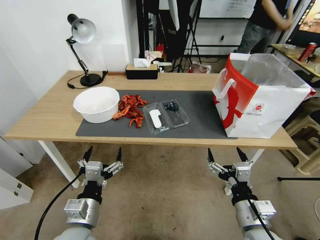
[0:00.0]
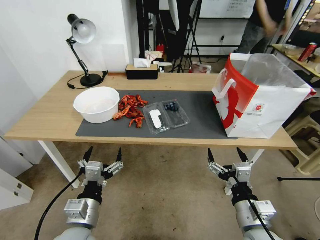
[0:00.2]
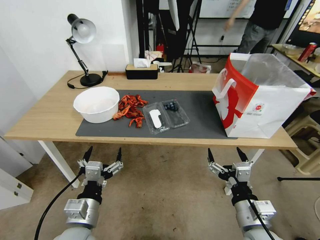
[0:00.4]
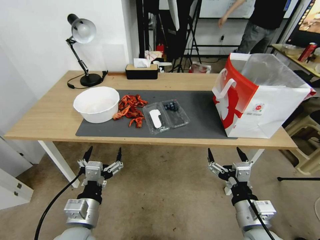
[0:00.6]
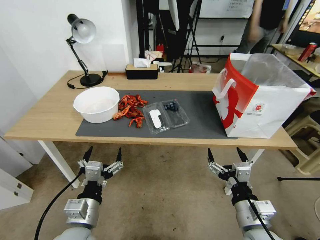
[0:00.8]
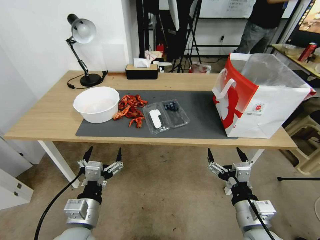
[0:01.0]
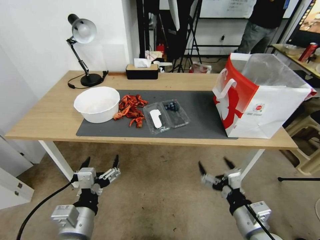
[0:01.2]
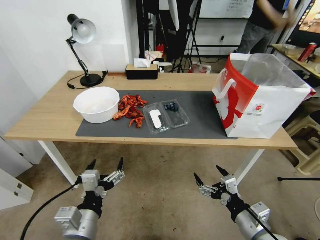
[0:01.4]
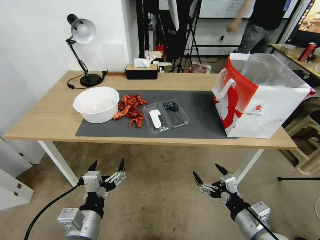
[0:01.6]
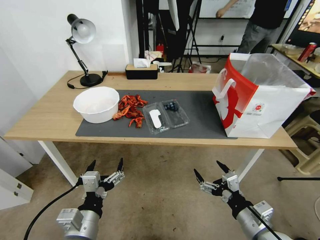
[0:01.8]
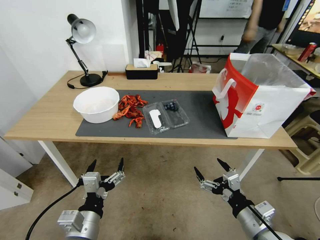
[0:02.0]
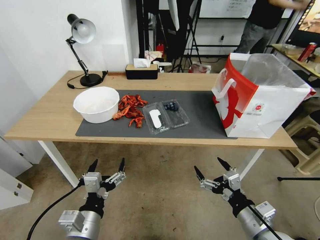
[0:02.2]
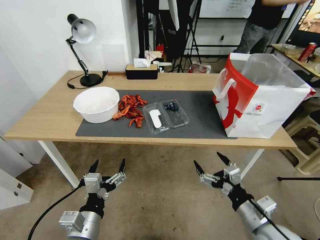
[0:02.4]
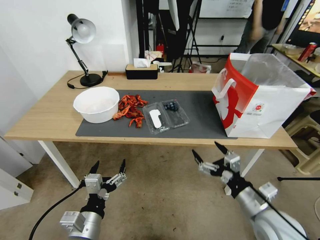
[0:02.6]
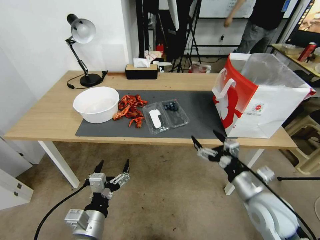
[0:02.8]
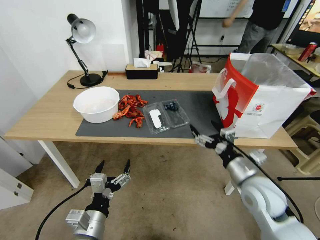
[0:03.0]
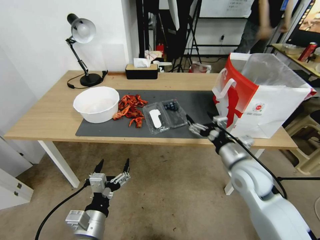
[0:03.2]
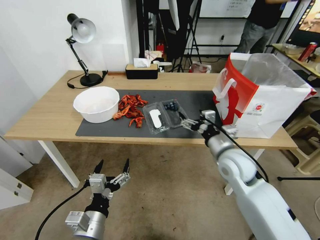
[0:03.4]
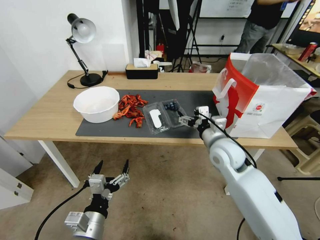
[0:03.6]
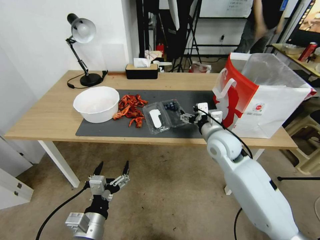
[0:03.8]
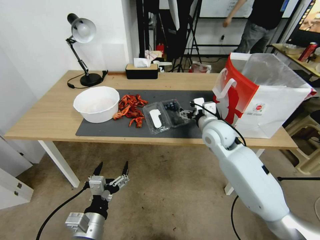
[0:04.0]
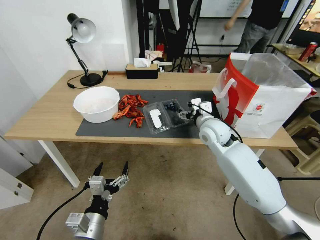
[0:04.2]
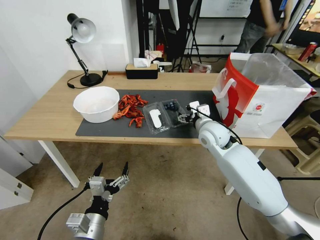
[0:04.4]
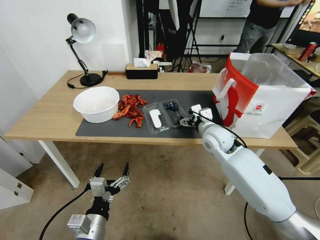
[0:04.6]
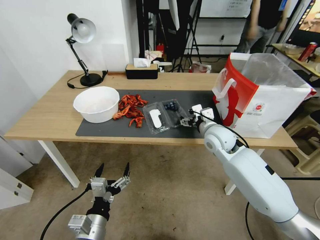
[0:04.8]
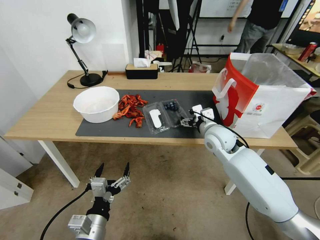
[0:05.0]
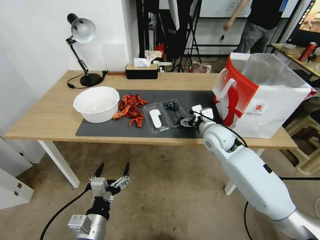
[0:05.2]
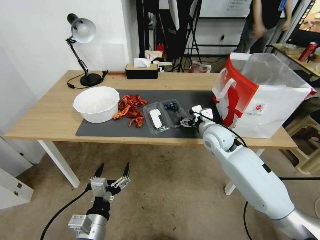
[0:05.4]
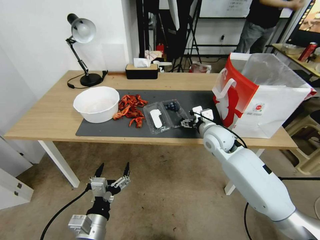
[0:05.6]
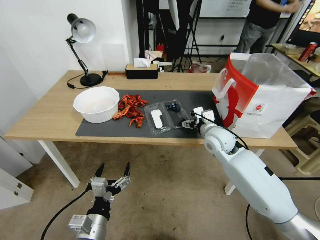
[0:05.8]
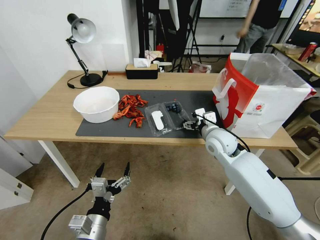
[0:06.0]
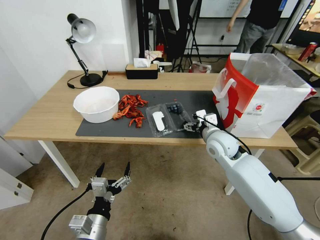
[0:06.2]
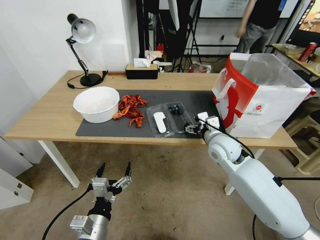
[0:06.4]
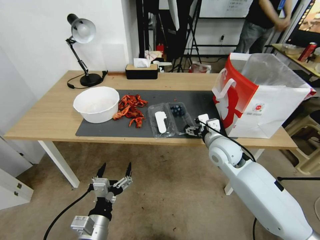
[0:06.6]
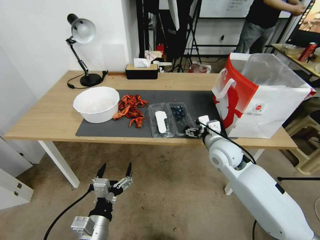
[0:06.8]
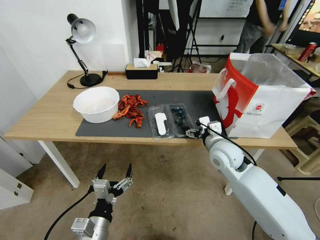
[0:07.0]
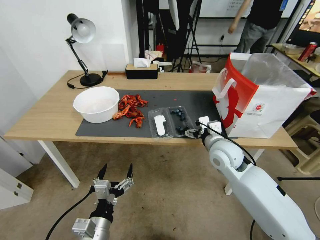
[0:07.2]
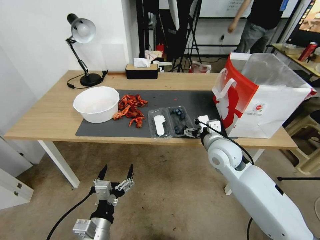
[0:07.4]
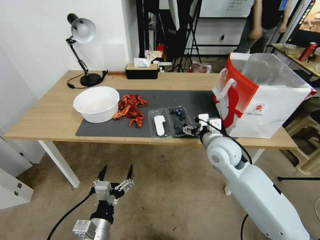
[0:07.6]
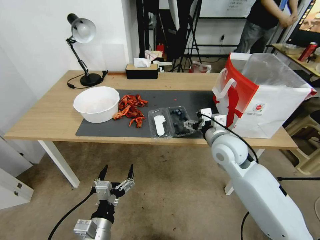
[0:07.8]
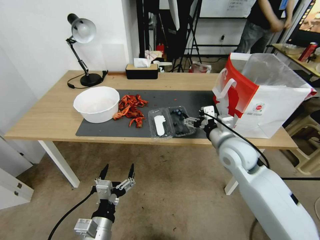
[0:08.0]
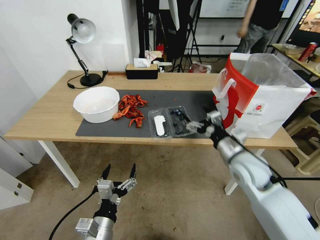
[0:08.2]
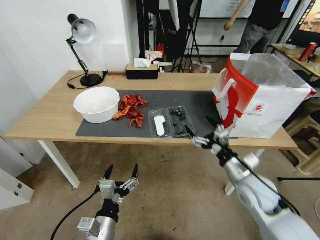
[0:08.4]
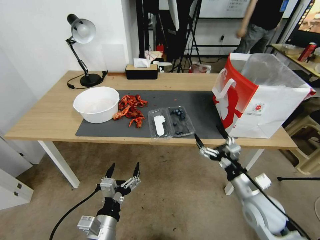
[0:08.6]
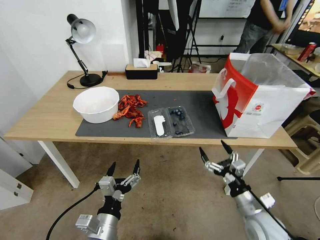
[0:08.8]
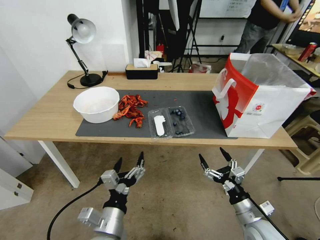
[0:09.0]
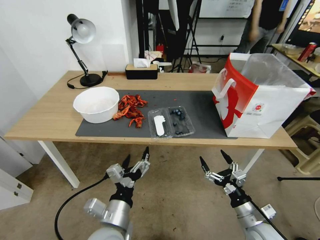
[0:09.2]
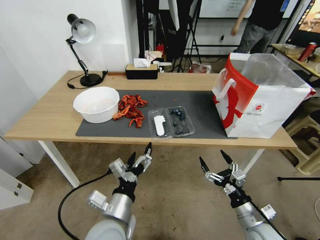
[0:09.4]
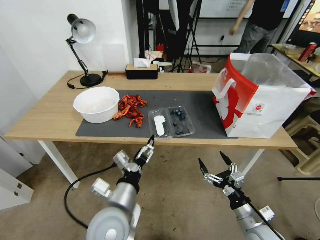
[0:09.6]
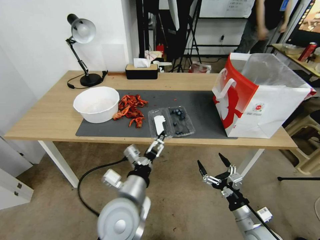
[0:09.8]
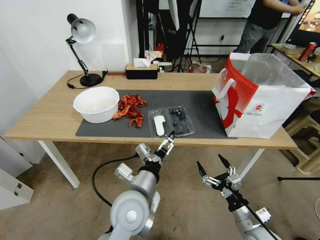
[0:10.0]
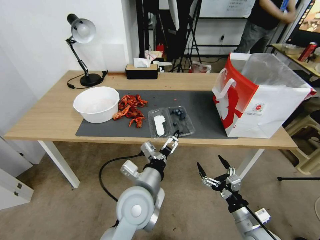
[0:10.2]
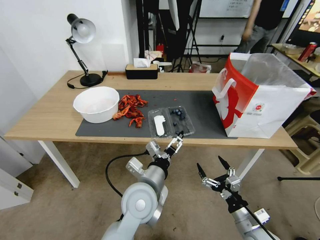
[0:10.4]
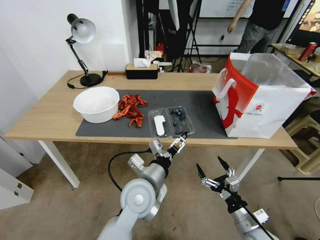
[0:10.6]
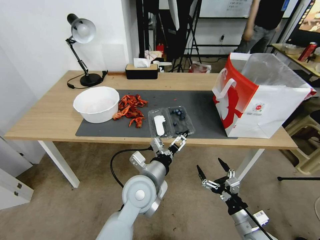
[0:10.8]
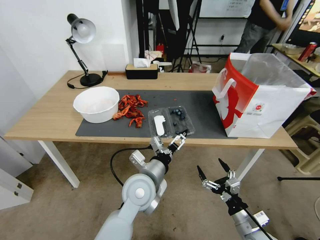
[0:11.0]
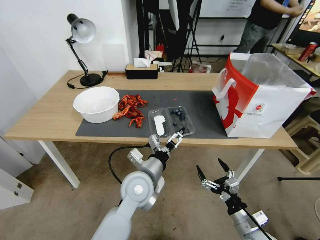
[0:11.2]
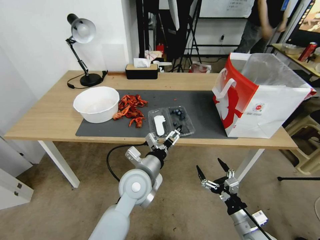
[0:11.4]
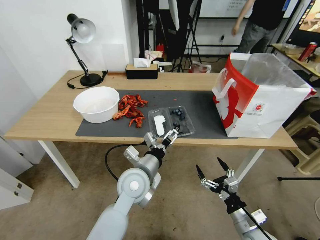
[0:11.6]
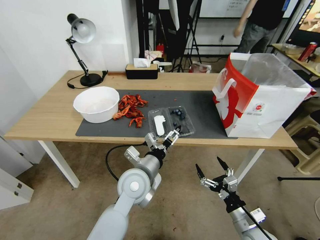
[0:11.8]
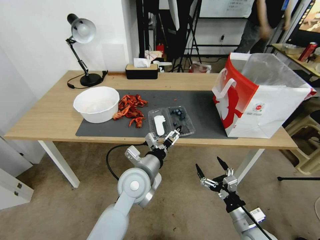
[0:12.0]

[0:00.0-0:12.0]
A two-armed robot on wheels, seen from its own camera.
Task of the whole recording: Close the takeout container lid, then place the container into the takeout bag.
0:01.6 to 0:03.0: The right gripper moves forward and upward, about 15 cm.
0:03.0 to 0:04.4: The right gripper heads forward and to the left, covering roughly 20 cm.
0:04.4 to 0:06.0: There are only small adjustments of the grippers.
0:06.0 to 0:07.6: The right gripper ends up roughly 5 cm from where it was.
0:07.6 to 0:09.0: The right gripper moves backward, downward and to the right, approximately 25 cm, while the left gripper moves approximately 5 cm.
0:09.0 to 0:10.4: The left gripper travels forward, to the right and upward by some 15 cm.
0:10.4 to 0:12.0: The left gripper ends up about 5 cm from where it was.

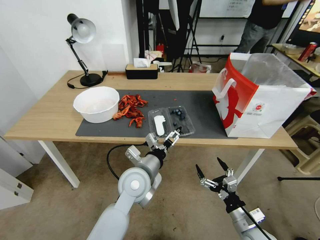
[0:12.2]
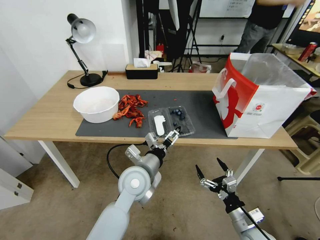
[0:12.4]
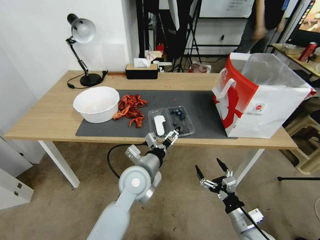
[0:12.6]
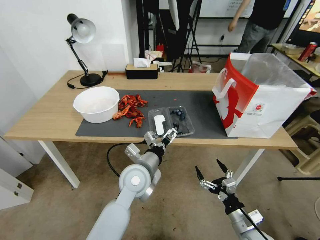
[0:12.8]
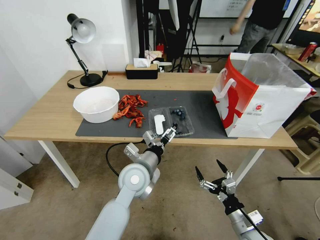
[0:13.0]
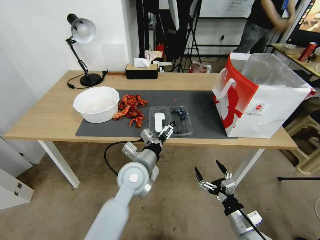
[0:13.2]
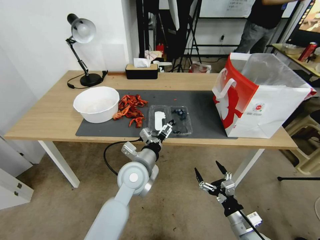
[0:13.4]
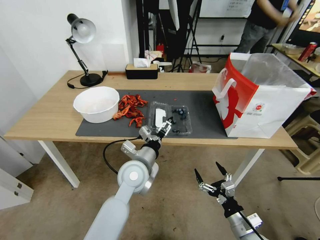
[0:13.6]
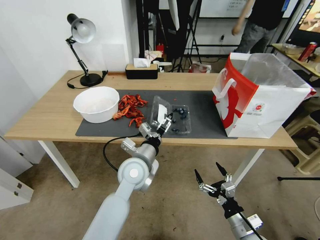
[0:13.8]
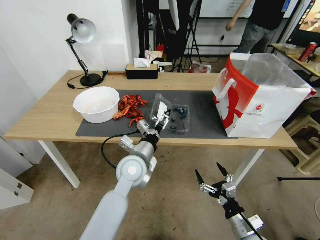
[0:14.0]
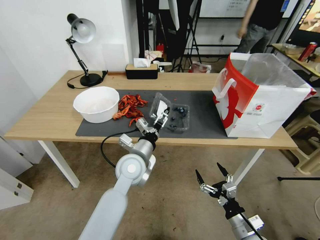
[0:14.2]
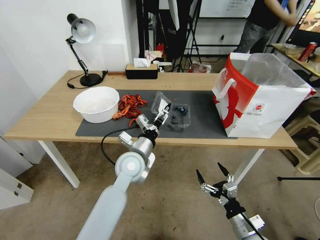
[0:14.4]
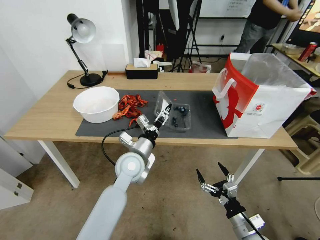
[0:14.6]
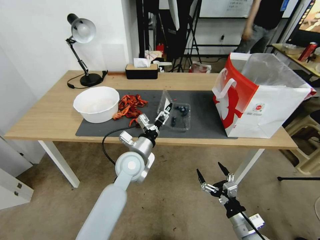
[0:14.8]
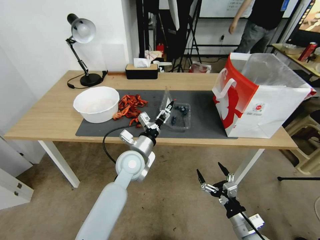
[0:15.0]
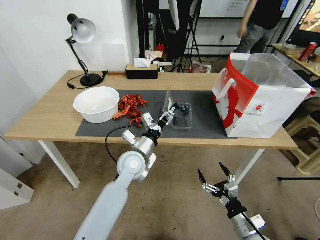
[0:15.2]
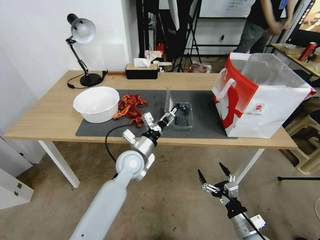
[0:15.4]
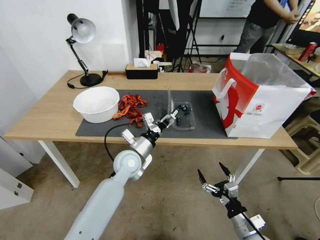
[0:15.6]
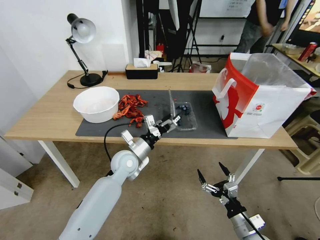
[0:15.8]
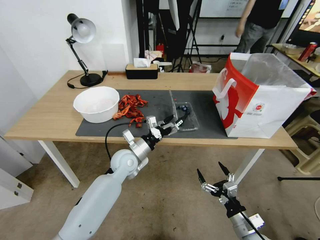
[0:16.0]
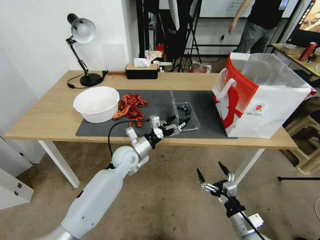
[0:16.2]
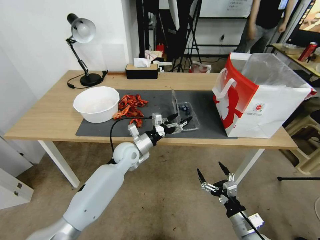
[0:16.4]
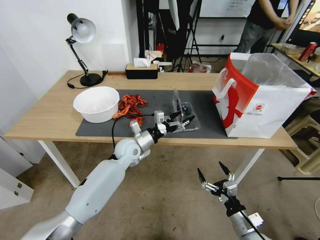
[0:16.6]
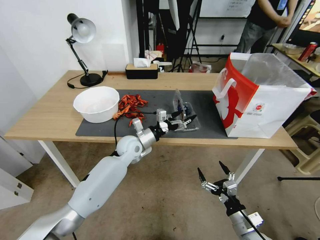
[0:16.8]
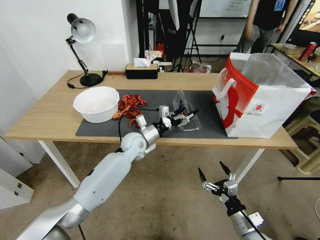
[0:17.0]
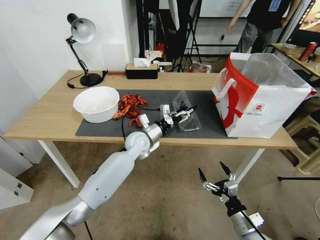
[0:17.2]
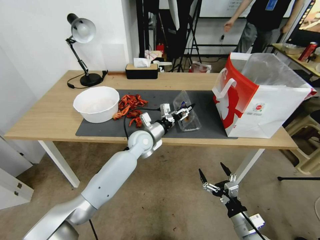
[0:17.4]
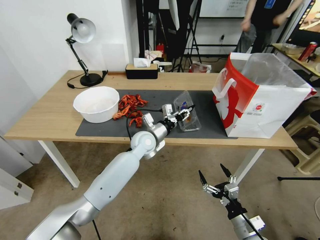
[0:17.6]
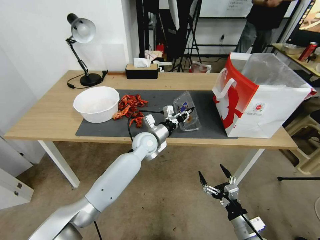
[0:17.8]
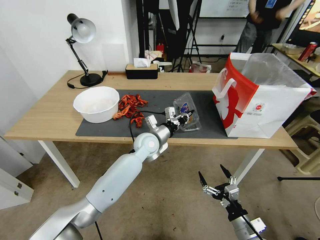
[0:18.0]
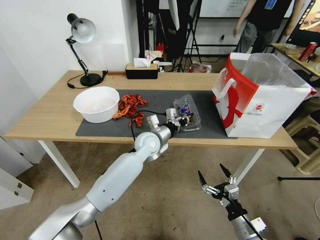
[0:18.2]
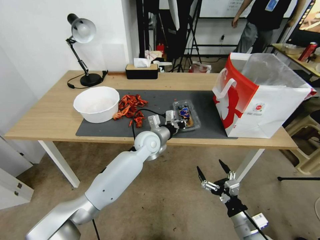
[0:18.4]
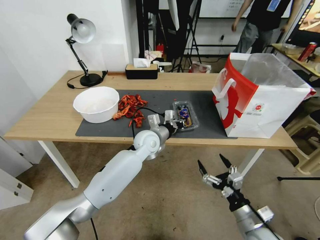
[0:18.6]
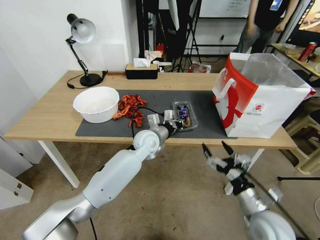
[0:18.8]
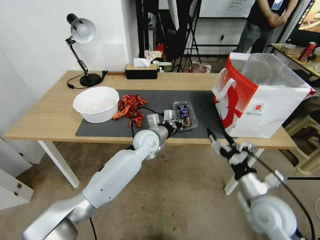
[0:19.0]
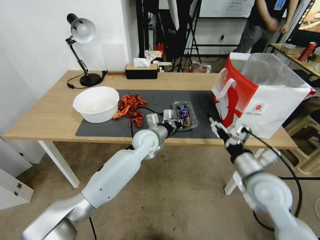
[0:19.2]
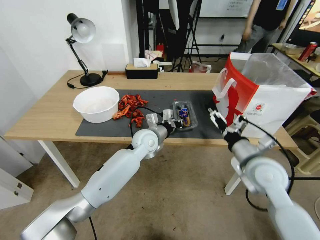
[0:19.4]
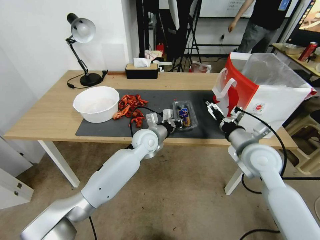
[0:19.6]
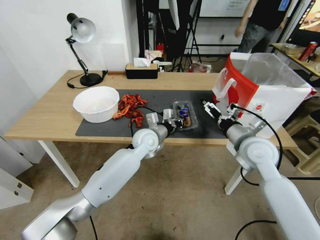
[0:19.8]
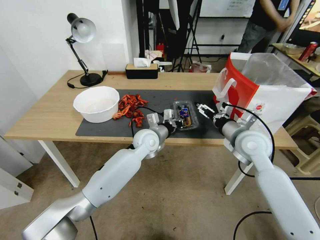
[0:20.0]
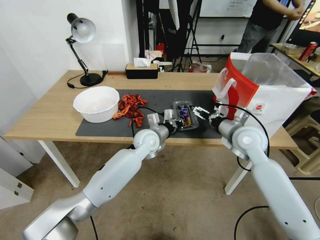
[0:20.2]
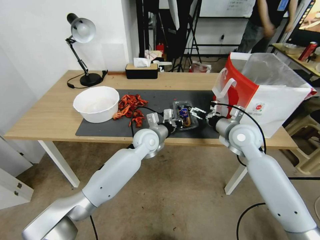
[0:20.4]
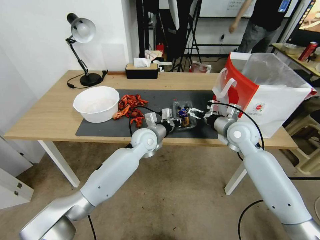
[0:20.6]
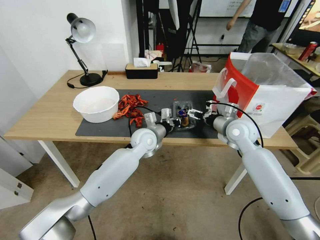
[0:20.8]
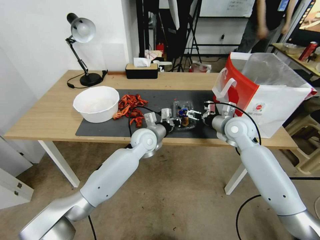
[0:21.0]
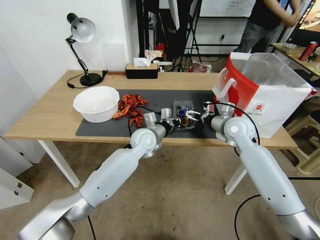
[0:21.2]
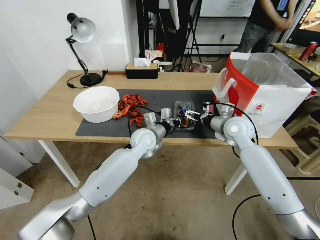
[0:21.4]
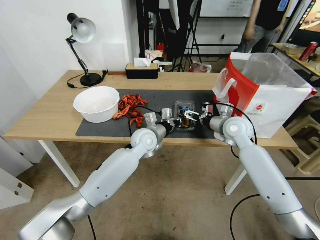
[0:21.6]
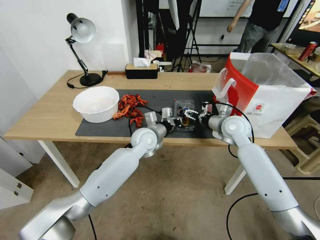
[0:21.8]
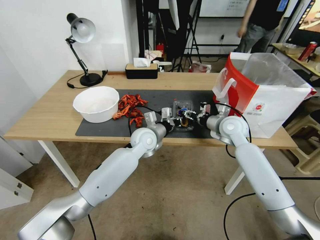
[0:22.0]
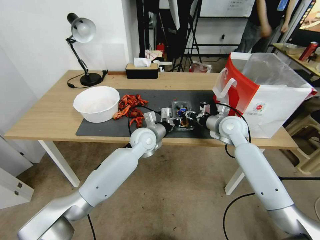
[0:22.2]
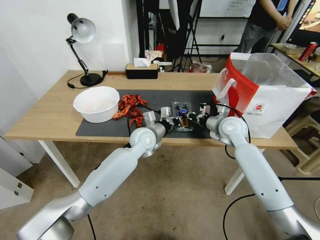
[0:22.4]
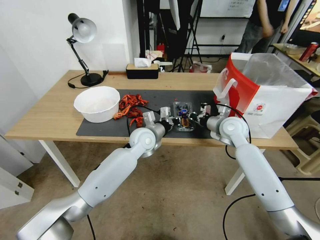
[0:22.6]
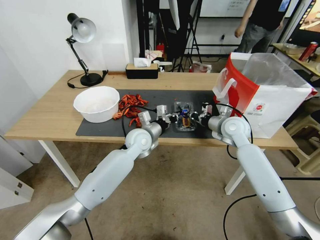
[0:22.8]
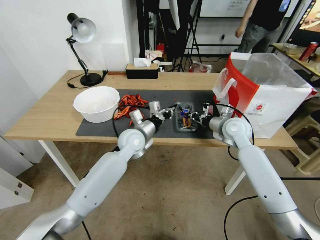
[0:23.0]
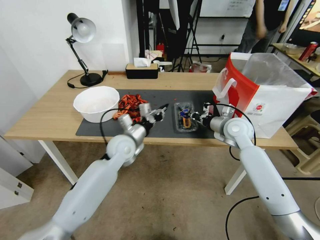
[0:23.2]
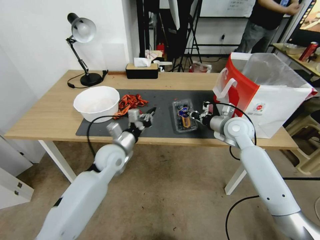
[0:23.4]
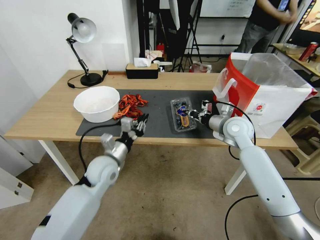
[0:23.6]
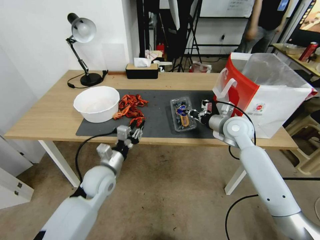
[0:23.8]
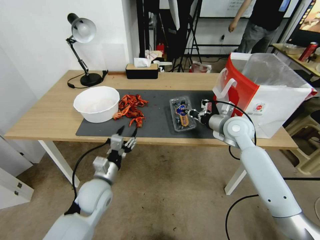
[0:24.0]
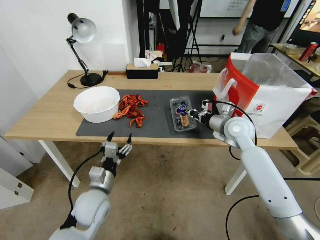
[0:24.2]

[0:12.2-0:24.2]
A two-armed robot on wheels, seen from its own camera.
Task of the whole recording: Close the takeout container lid, then place the container into the takeout bag.
0:12.2 to 0:13.8: There are only small adjustments of the grippers.
0:13.8 to 0:15.2: The grippers stay close to where they were, moving slightly.
0:15.2 to 0:16.6: The left gripper travels forward by about 10 cm.
0:16.6 to 0:18.2: The left gripper is displaced to the right by approximately 10 cm, and closes up.
0:18.2 to 0:19.8: The right gripper travels upward and forward by about 30 cm.
0:19.8 to 0:21.2: The right gripper moves forward, roughly 10 cm.
0:21.2 to 0:22.6: The right gripper closes its fingers.
0:22.6 to 0:24.2: The left gripper shifts roughly 25 cm backward and to the left, and opens.
